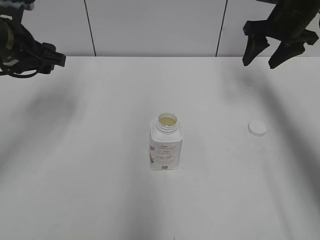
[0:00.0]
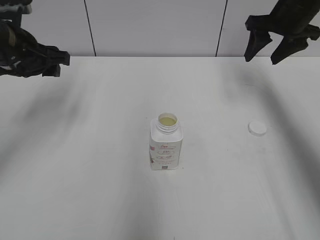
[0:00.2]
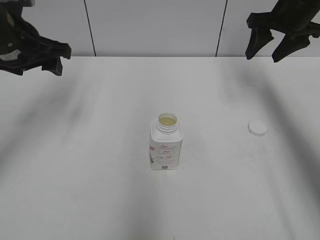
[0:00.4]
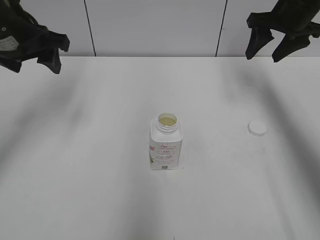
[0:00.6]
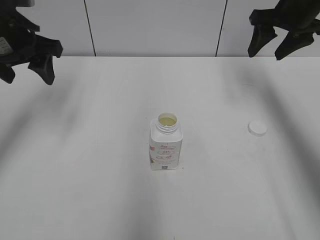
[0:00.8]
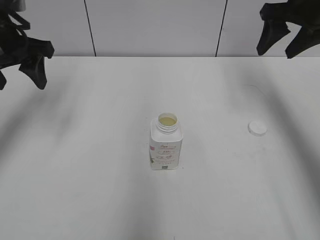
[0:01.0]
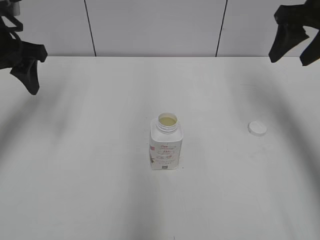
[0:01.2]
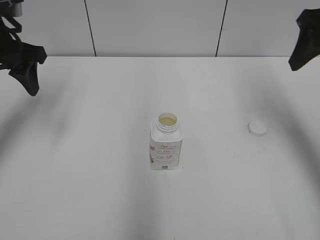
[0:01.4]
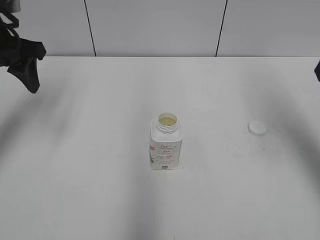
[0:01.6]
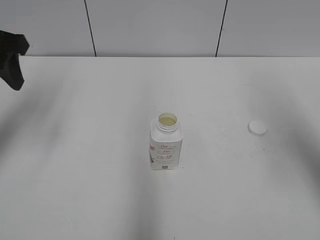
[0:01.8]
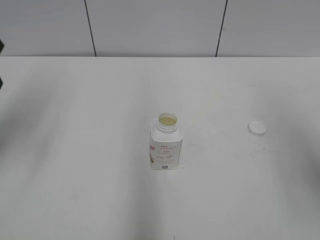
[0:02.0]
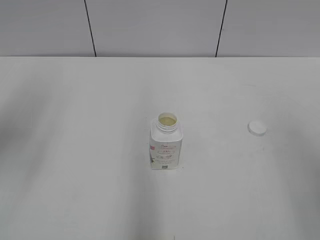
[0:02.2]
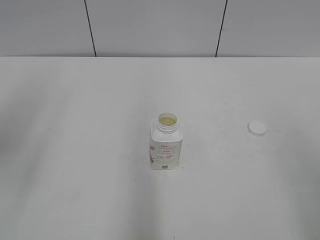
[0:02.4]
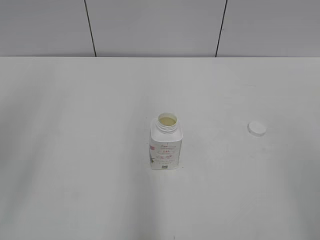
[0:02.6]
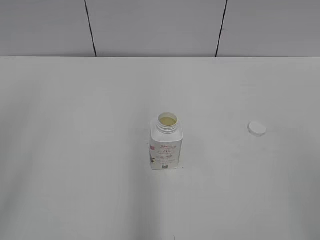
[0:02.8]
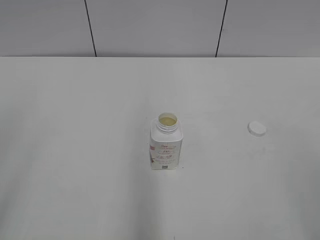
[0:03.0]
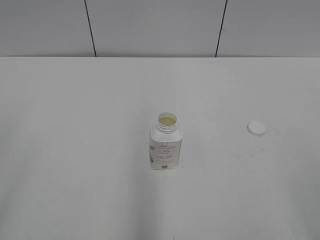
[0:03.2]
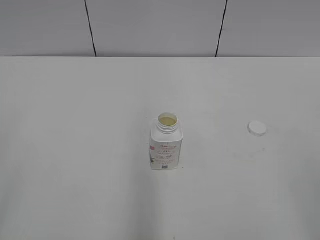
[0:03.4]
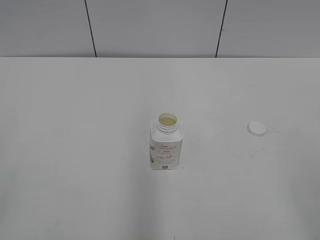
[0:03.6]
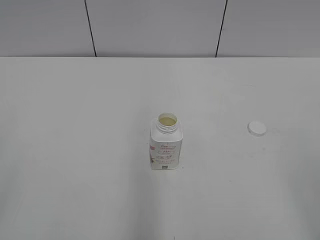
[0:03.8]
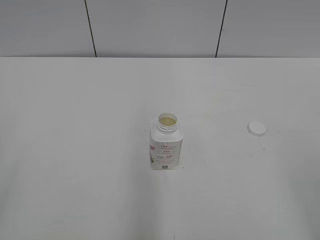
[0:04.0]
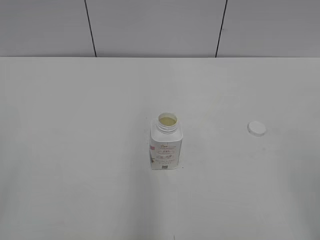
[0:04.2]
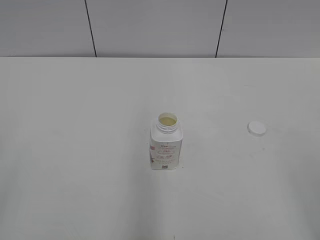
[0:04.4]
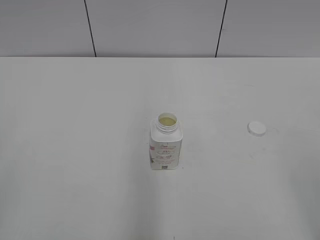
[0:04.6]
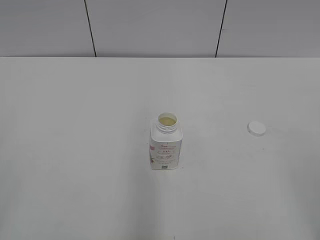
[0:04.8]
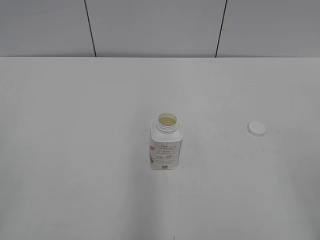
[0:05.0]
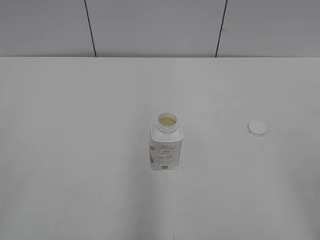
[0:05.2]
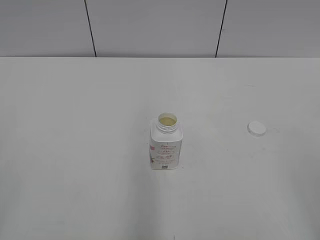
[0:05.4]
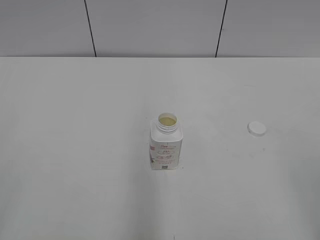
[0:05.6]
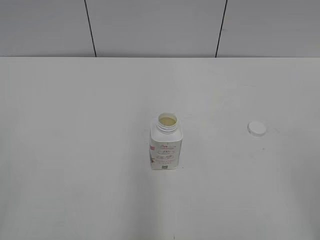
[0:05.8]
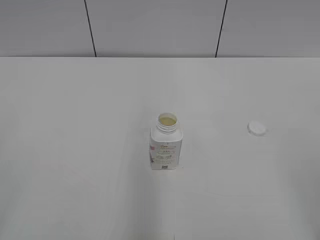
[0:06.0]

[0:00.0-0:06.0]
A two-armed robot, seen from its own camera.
0.0 to 1.6 s: The right gripper goes roughly 20 cm backward and upward.
1.6 to 3.0 s: Both grippers travel together backward, approximately 25 cm. The left gripper closes its fingers.

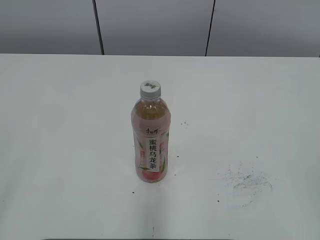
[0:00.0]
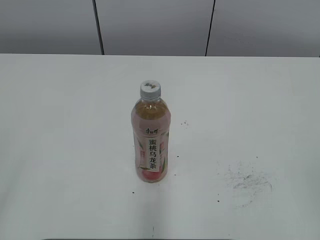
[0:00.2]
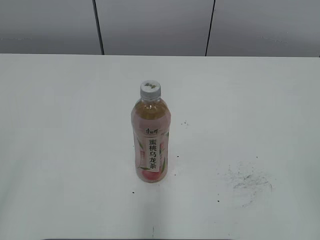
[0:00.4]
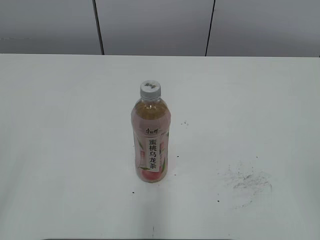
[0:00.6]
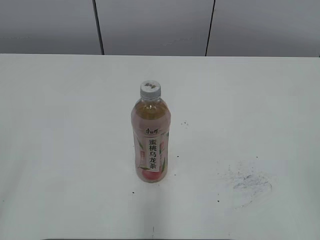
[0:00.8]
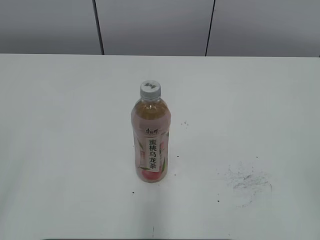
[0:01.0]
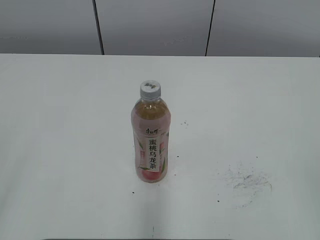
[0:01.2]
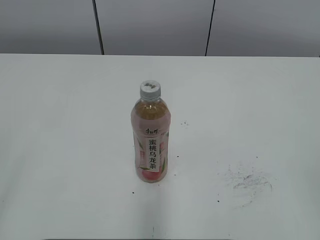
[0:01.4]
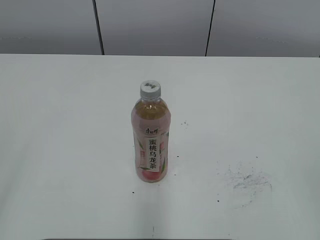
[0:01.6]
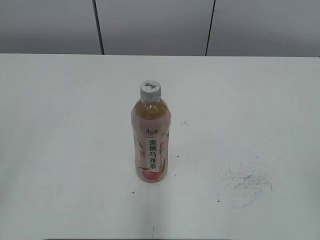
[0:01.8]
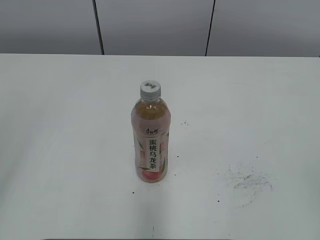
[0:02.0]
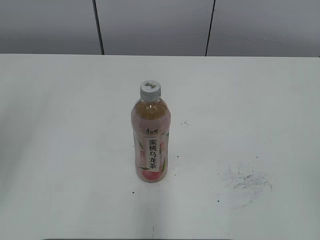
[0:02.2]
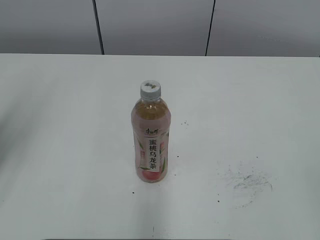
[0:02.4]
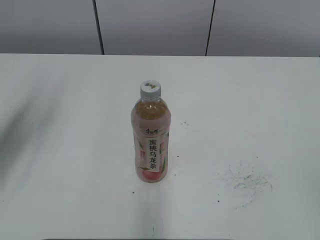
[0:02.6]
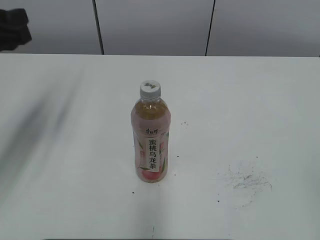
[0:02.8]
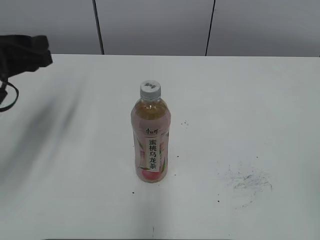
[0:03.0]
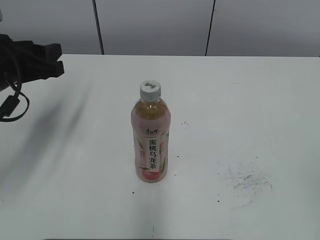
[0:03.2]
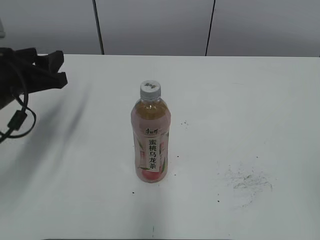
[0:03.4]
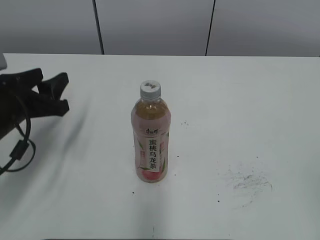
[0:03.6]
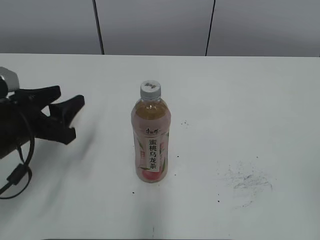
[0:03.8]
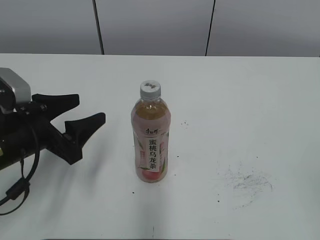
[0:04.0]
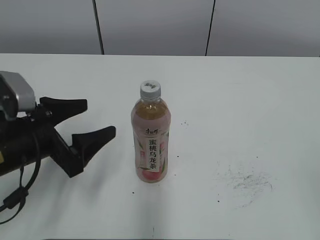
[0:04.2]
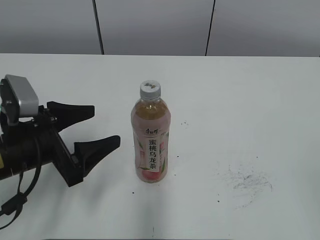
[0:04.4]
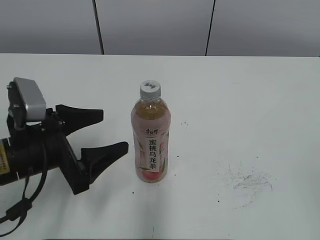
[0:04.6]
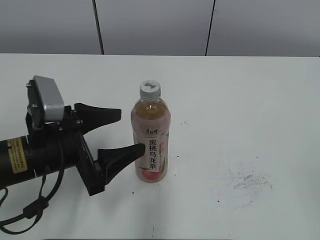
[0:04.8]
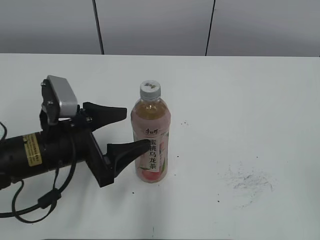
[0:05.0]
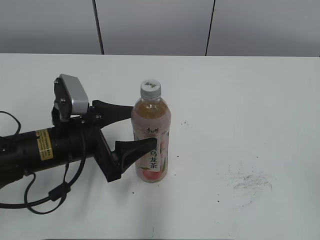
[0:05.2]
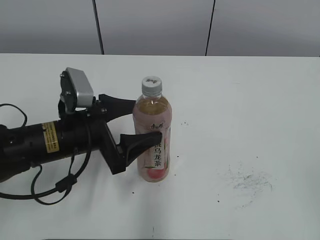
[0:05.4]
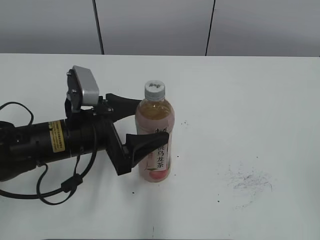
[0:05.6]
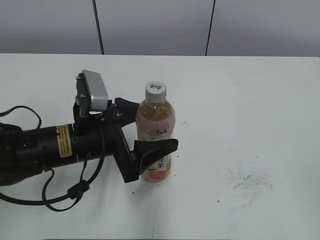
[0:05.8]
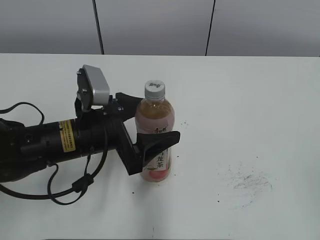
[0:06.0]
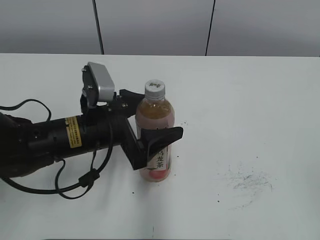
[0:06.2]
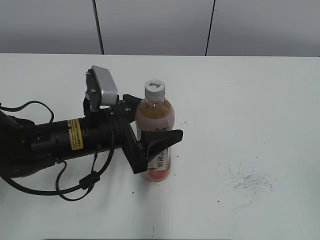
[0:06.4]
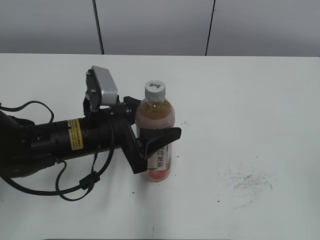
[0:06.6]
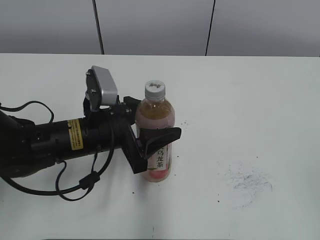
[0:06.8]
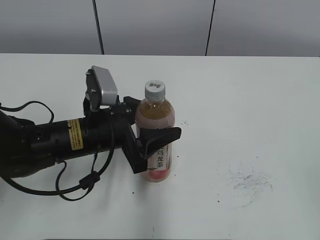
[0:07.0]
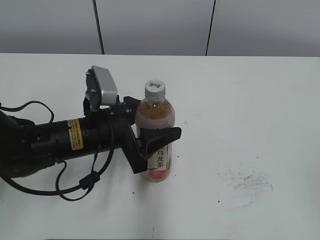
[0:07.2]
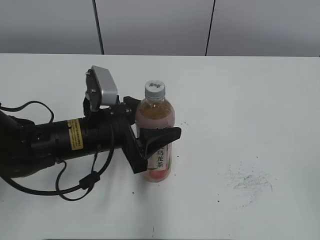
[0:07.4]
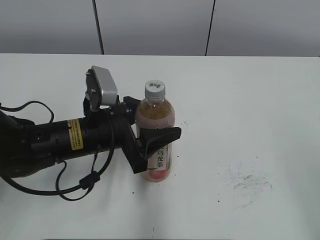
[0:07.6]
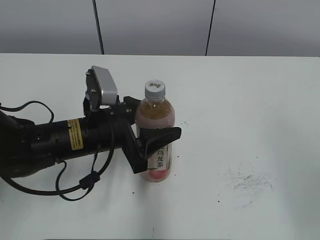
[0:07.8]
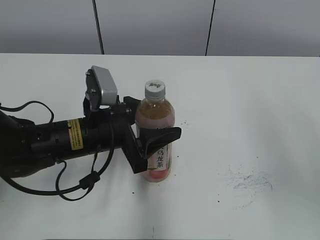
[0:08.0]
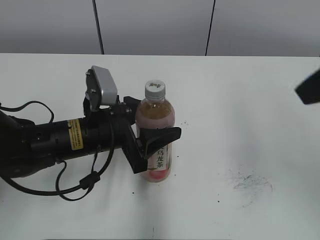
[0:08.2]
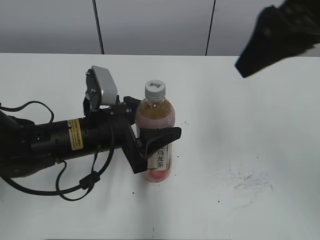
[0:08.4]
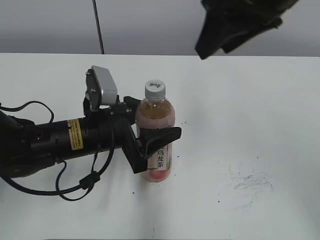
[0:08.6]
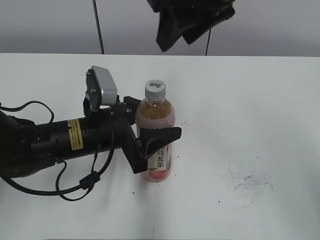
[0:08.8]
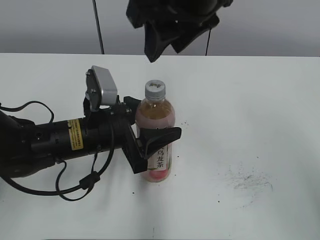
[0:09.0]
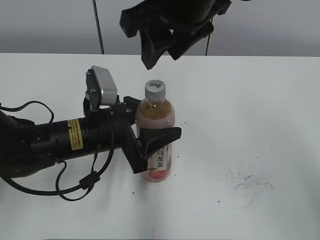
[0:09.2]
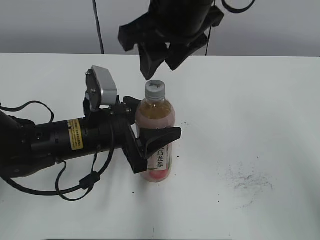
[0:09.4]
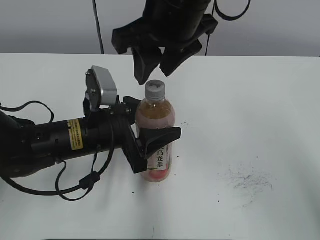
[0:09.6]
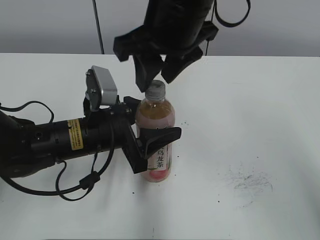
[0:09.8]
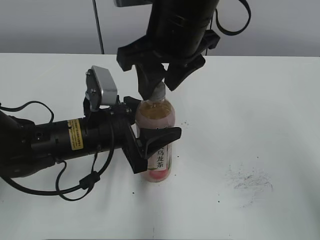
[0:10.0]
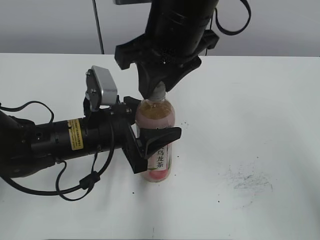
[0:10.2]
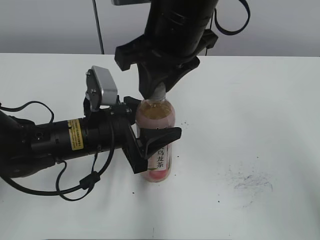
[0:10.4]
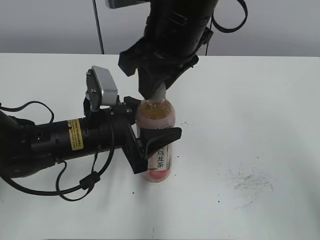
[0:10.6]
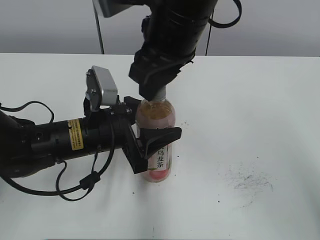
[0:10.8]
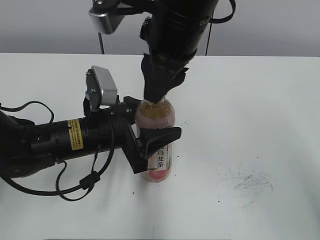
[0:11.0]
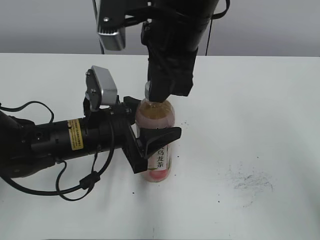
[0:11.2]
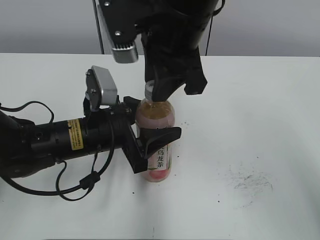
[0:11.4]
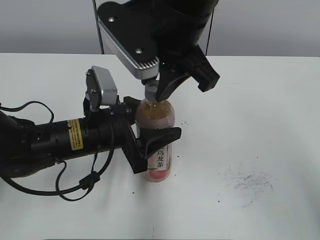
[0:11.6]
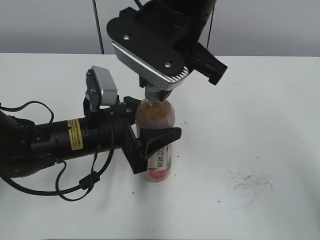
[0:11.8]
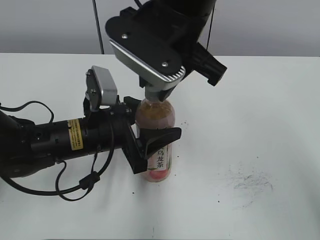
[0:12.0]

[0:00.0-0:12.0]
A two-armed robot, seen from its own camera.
Step, 0.0 to 6.4 s: Grab the Peach Oolong Tea with the left hand.
1.6 to 3.0 s: The left gripper goes roughly 30 cm forward, and closes its fingers.
3.0 to 4.4 s: The left gripper goes some 15 cm downward, backward and to the right, and opens.
4.4 to 6.0 s: The left gripper goes about 10 cm to the right.
6.0 to 7.6 s: The left gripper closes up.
7.6 to 9.0 s: The right gripper goes roughly 35 cm forward and to the left, and closes its fingers.
9.0 to 10.4 s: The right gripper shifts by about 5 cm, and closes its fingers.

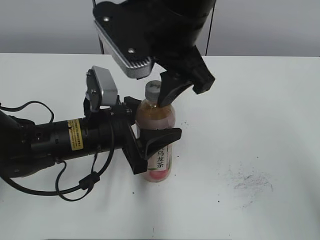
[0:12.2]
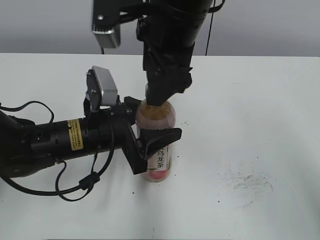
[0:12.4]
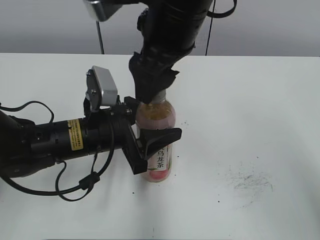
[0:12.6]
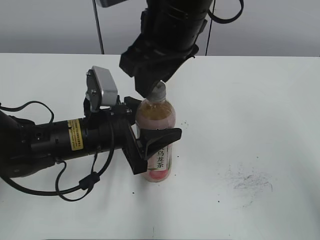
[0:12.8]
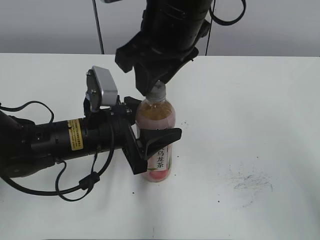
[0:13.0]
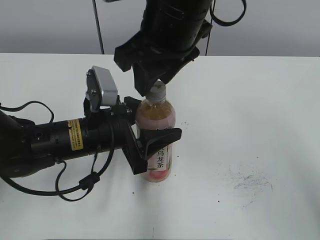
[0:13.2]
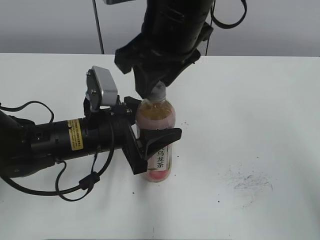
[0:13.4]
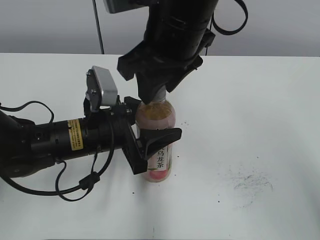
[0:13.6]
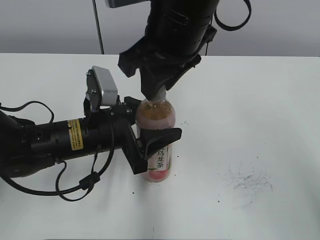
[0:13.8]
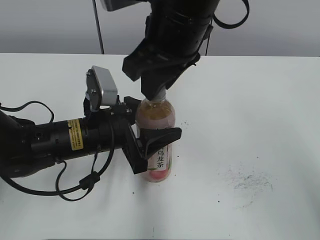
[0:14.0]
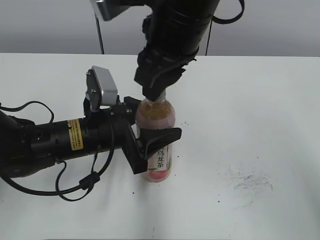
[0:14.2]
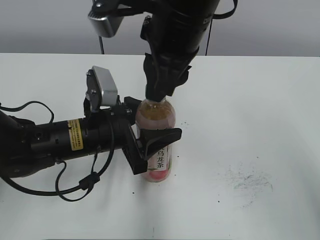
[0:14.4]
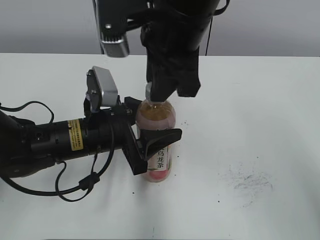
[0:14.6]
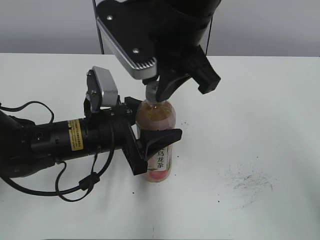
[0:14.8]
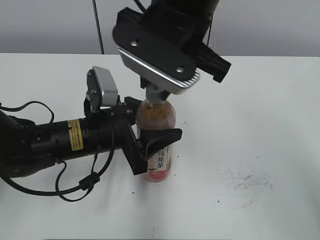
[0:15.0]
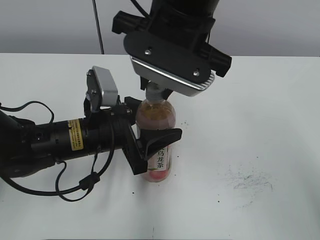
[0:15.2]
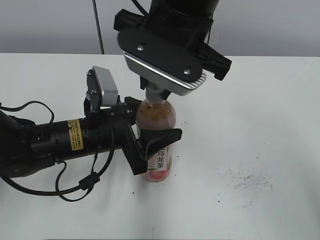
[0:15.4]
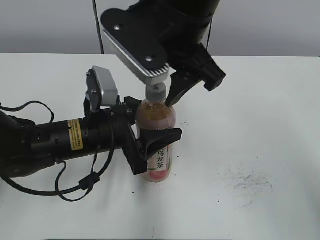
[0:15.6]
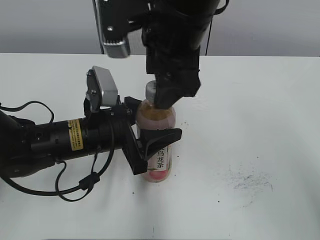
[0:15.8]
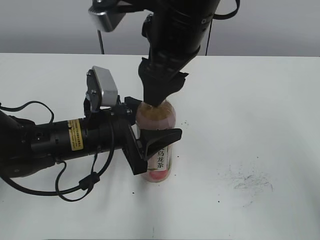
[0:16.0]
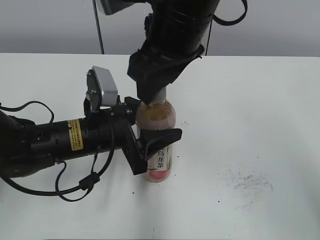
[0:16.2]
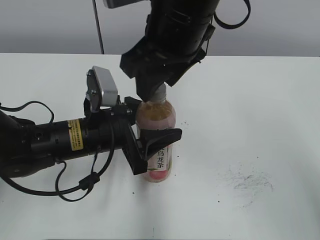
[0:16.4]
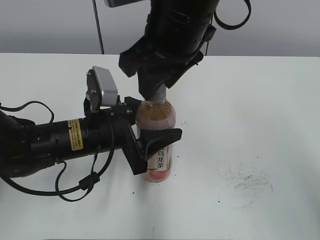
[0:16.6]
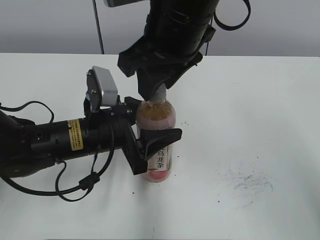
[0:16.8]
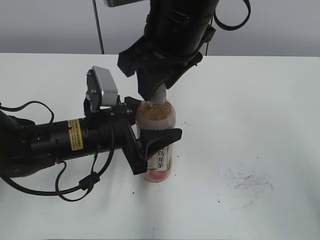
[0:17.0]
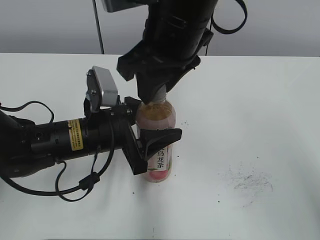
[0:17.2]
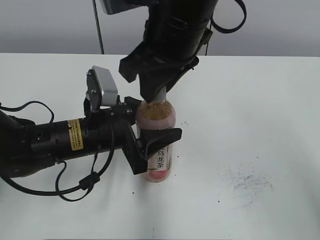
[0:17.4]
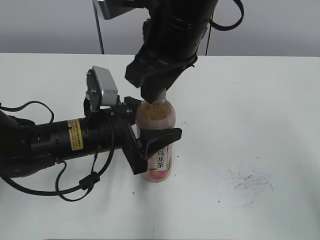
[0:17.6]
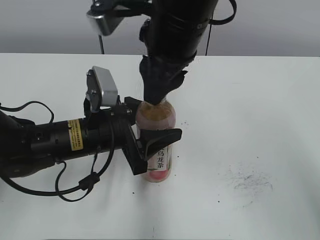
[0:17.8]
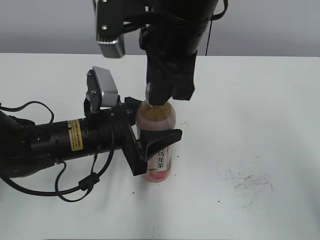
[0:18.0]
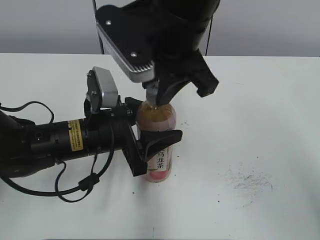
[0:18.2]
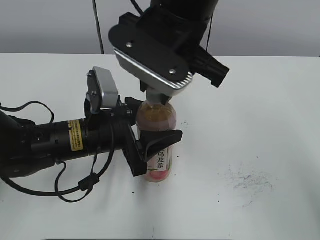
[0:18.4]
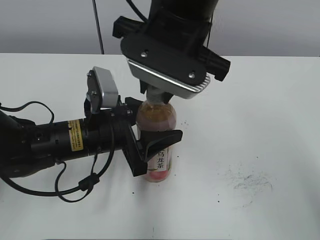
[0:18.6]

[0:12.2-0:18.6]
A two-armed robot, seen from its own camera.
12.2 to 13.8 s: The right gripper closes its fingers.
15.4 to 17.0 s: The right gripper opens and closes again.
